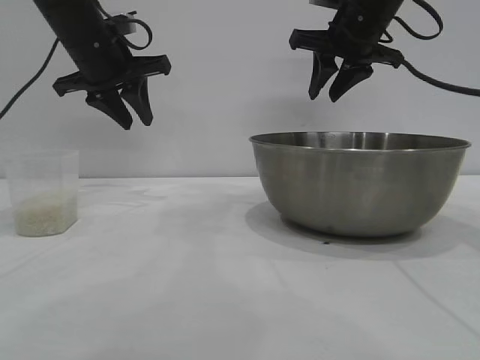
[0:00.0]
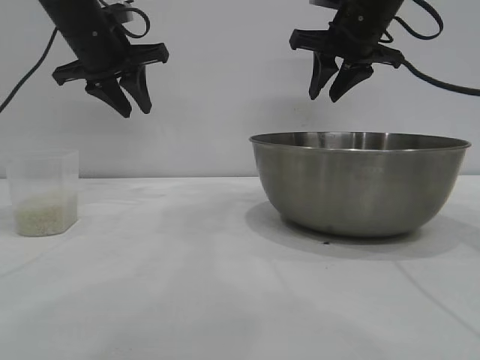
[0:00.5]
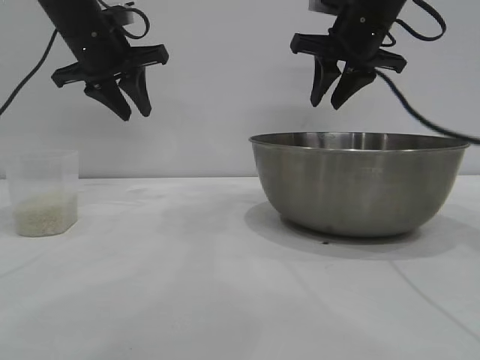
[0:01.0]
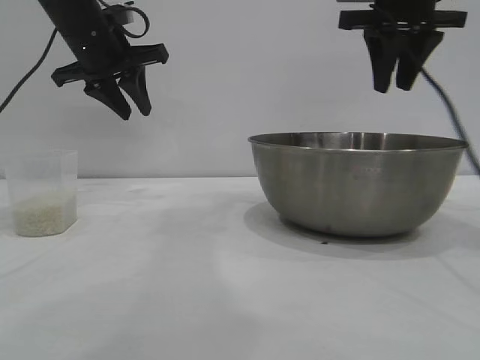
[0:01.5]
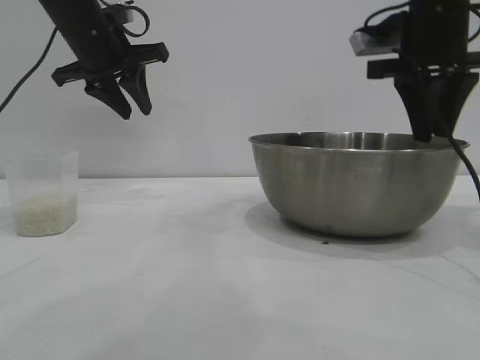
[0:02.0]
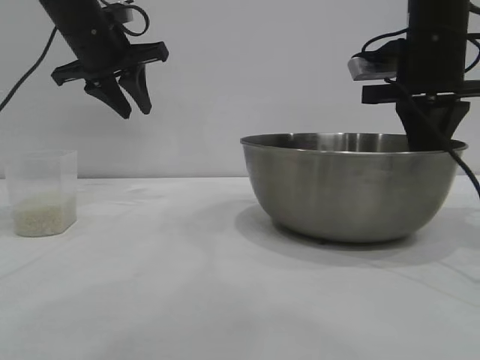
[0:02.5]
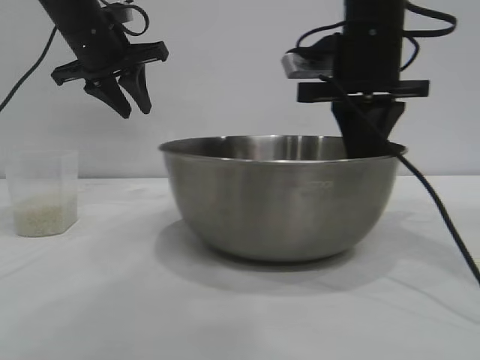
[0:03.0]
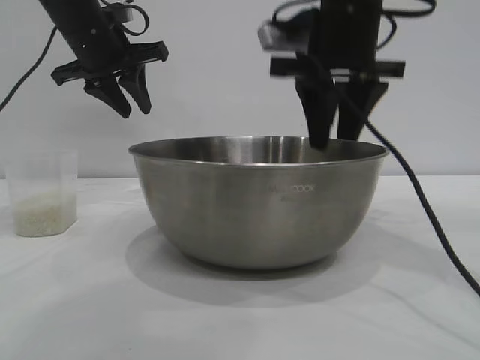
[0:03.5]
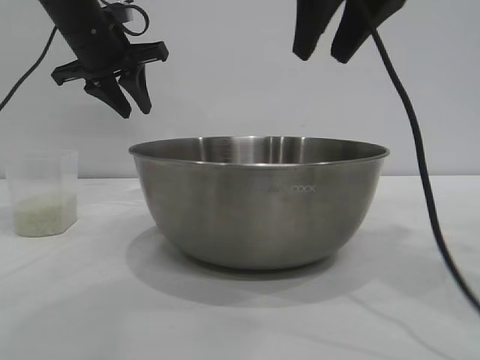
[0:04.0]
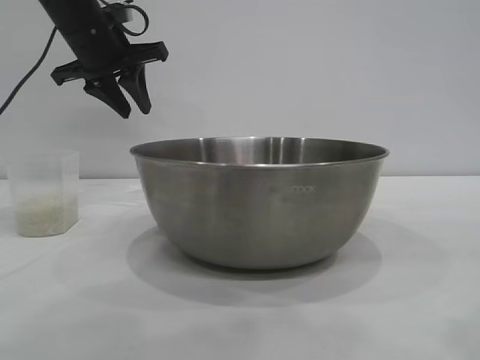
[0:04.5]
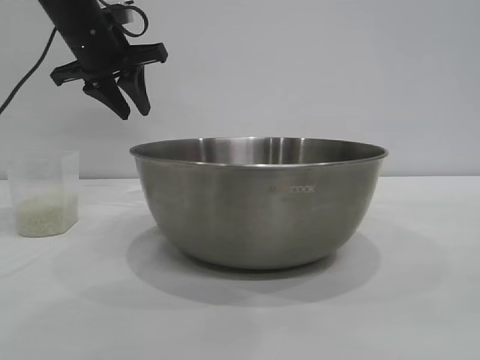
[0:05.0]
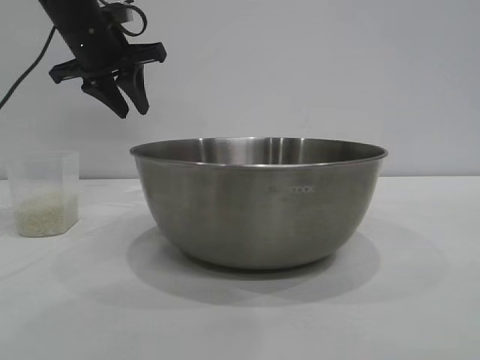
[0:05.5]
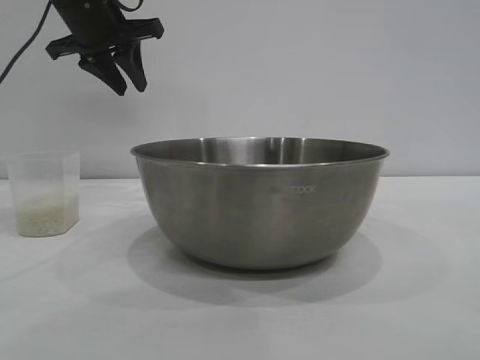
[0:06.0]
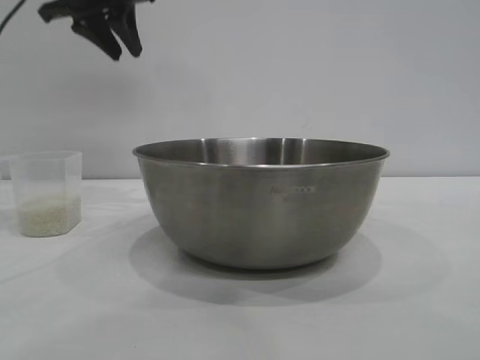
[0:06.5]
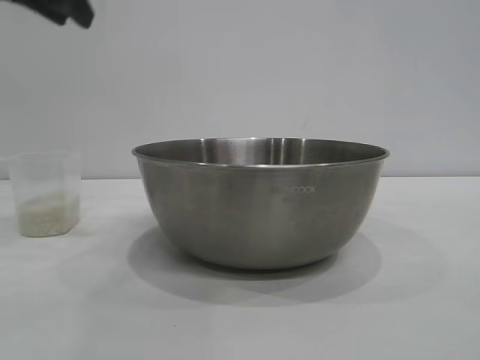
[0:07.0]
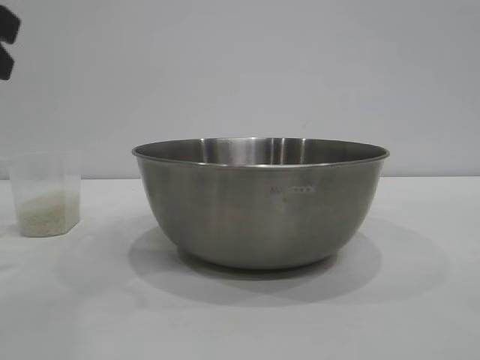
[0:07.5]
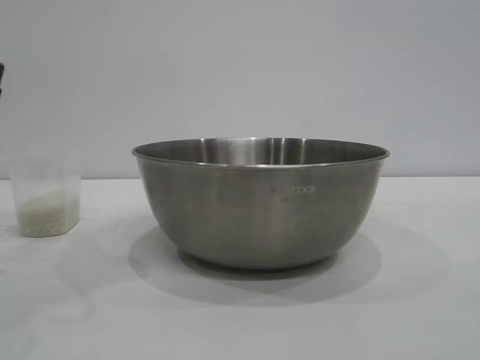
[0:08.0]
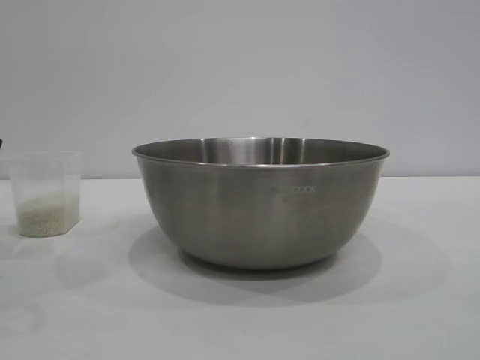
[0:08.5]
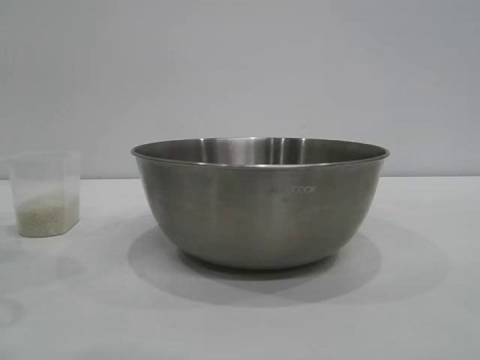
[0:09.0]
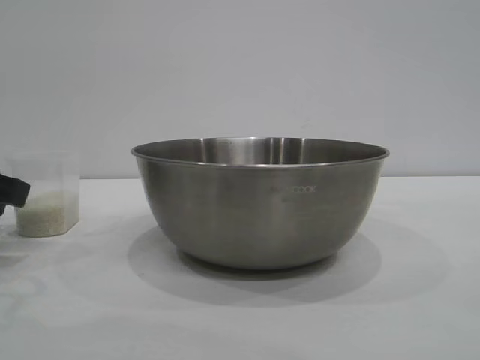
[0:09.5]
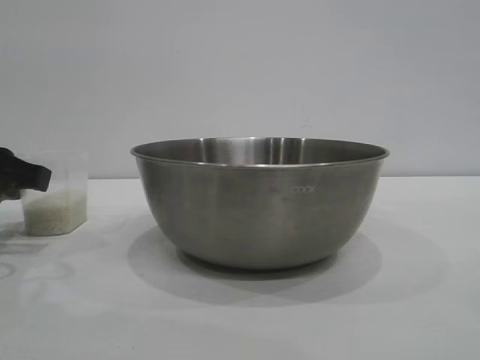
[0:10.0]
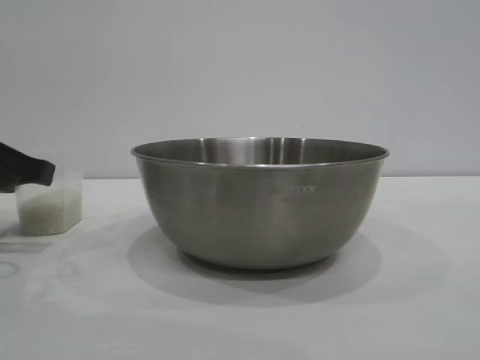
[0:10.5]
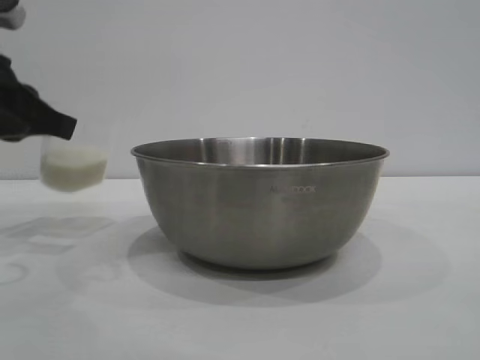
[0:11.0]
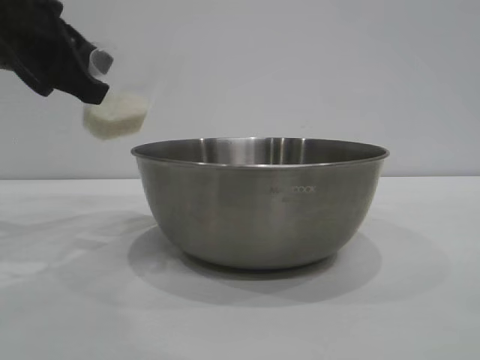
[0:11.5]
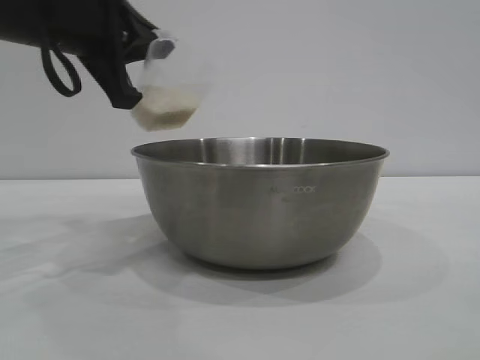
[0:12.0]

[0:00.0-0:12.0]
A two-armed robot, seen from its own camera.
Task of the whole recording: the right gripper grasp the rice container and place it in the center of the table, the left gripper grasp the rice scoop and pour the rice into the rice container.
Step, 0:00.0 to 0:03.5: Move the bowl to the center of view with the right gripper.
Step, 0:04.0 to 0:10.5: Pick up the cup with rice in it with the left gripper.

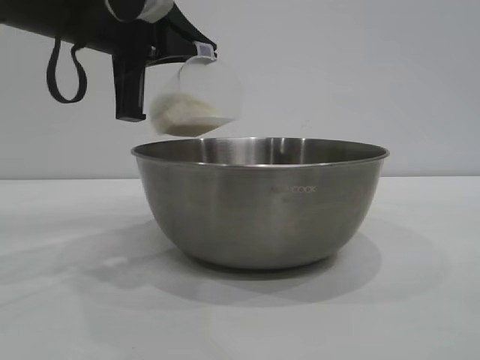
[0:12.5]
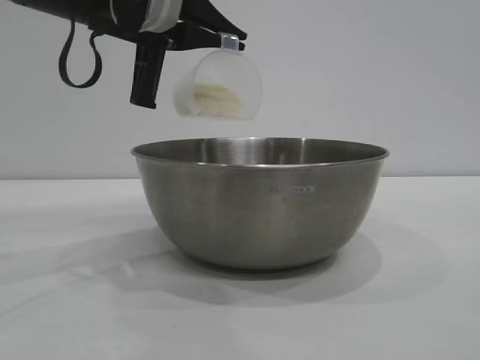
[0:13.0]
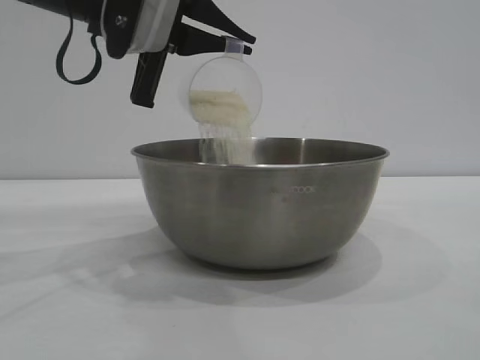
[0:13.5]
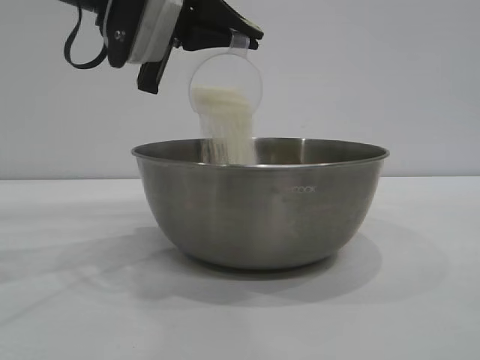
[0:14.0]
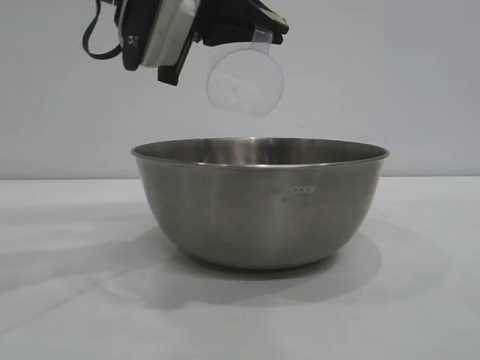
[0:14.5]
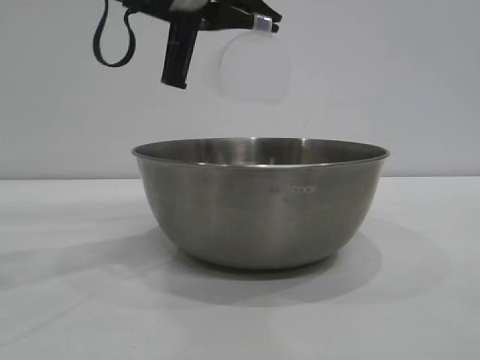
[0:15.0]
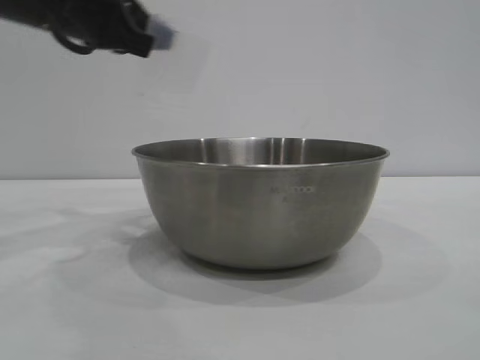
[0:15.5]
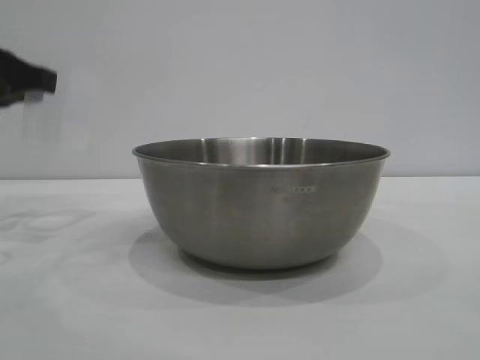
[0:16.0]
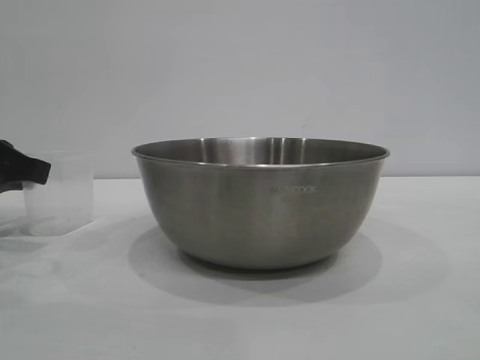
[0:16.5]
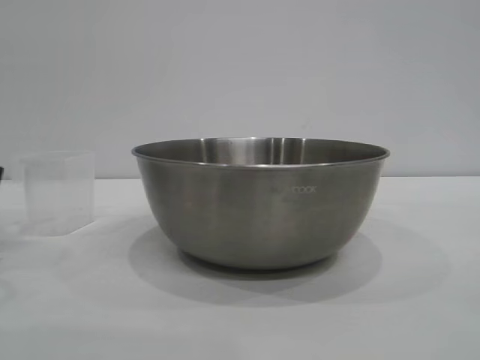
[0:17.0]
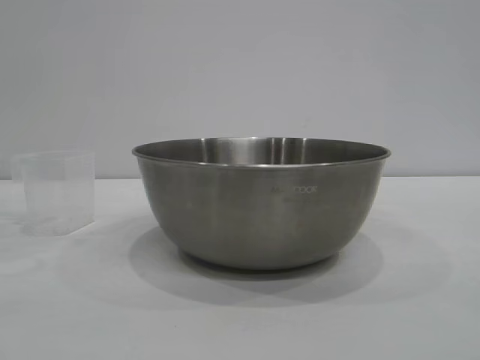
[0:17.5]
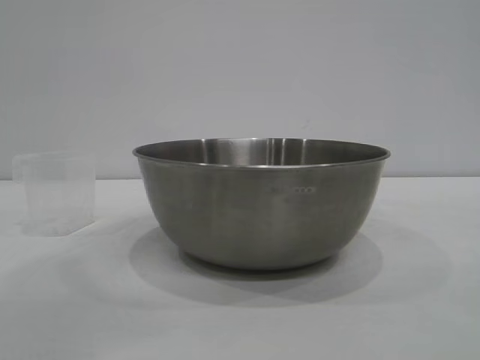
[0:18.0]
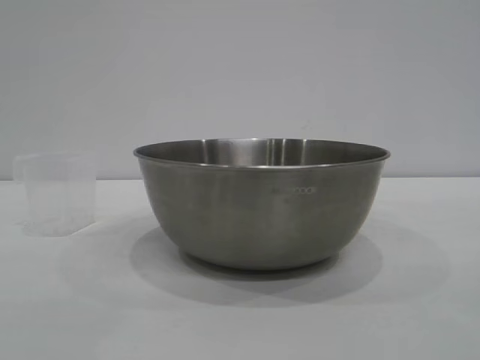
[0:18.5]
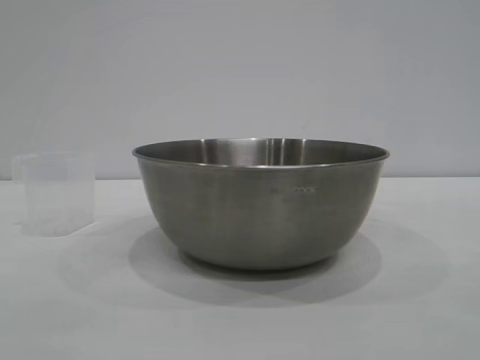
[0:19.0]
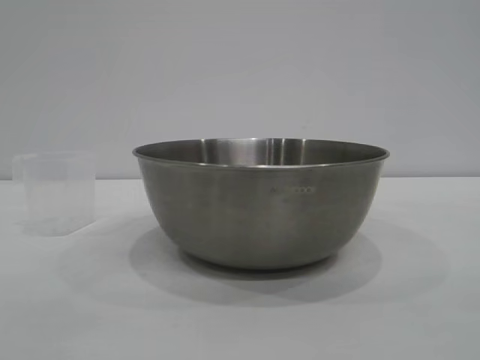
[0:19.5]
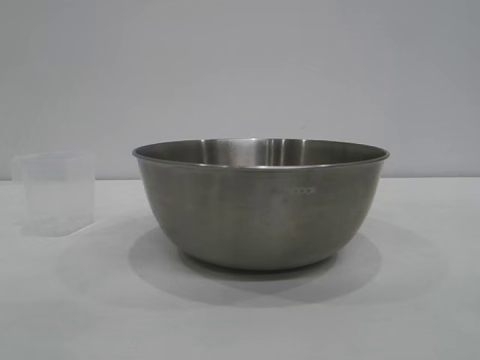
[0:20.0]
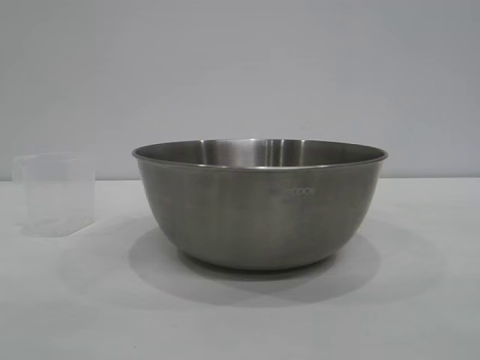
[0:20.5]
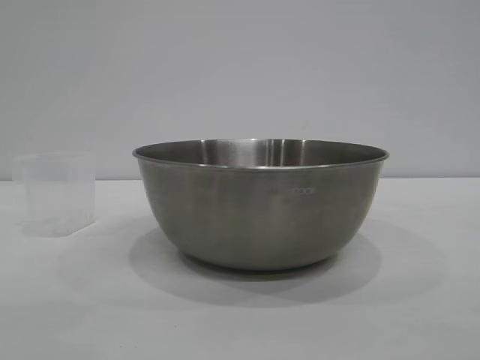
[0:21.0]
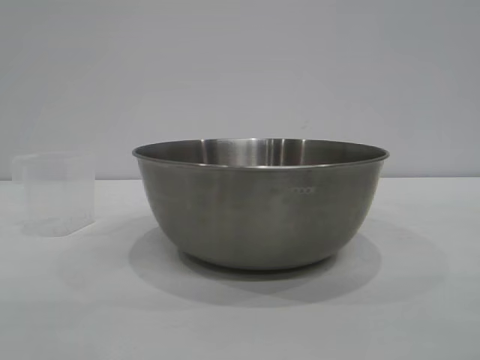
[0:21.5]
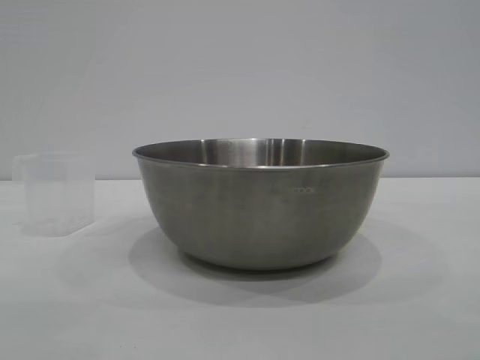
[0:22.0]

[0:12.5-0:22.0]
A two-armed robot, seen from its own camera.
Task of the whole recording: the right gripper grasp the rice container and place it in the center of the table, the left gripper grasp the rice scoop and pour the rice into the rice container.
Step, 0:12.5 to 0:15.0: Pour the rice from the cup into the bowl with the left gripper.
Step, 0:15.5 to 0:17.0: Place the cup on the table with the left gripper.

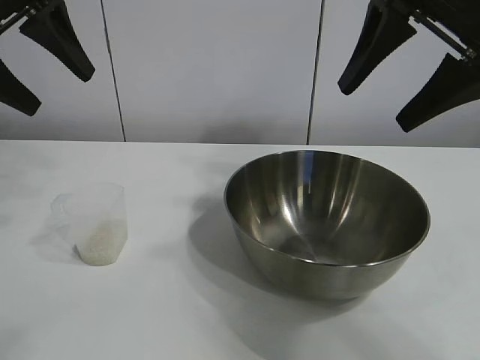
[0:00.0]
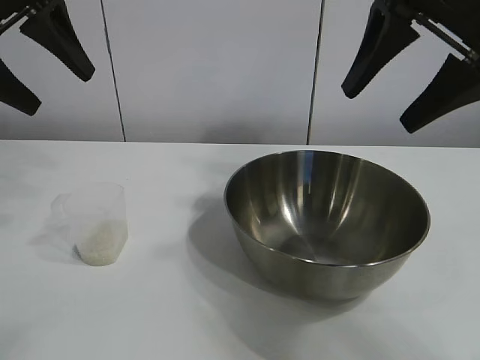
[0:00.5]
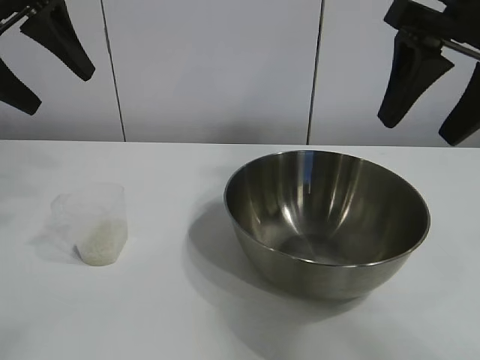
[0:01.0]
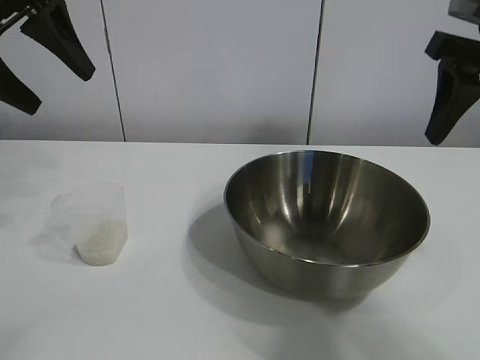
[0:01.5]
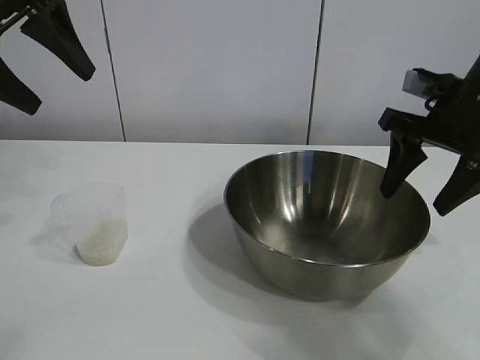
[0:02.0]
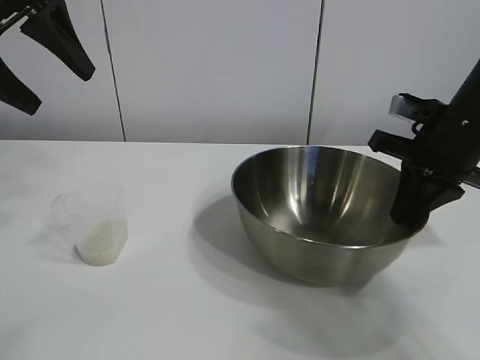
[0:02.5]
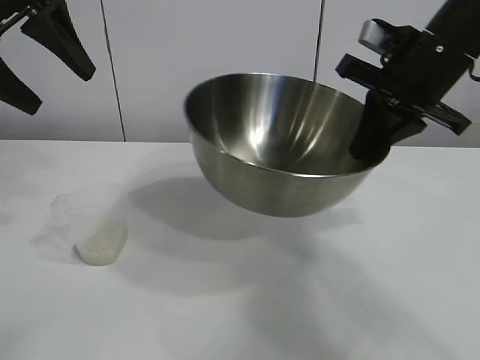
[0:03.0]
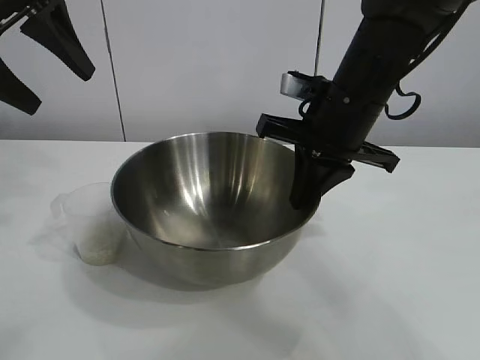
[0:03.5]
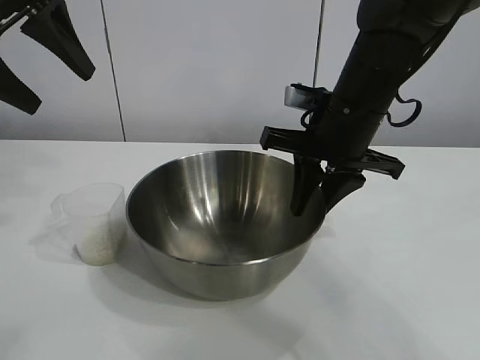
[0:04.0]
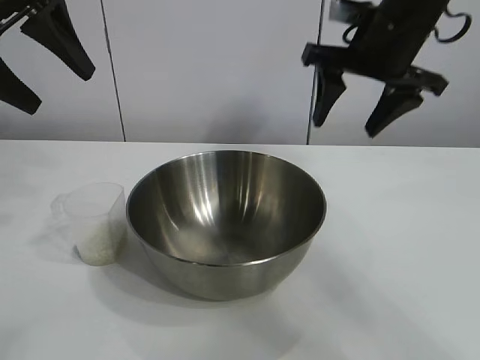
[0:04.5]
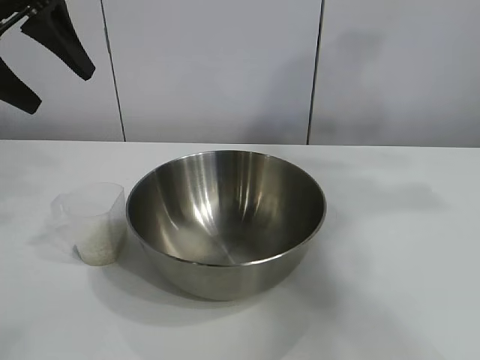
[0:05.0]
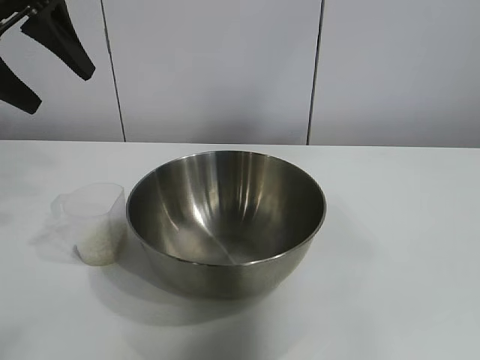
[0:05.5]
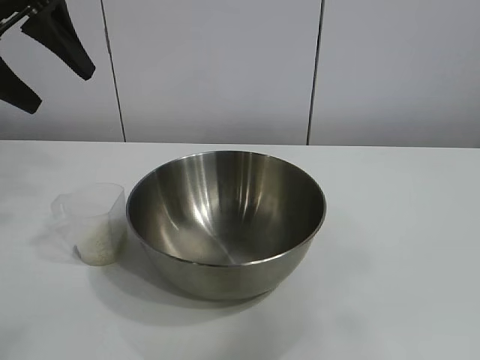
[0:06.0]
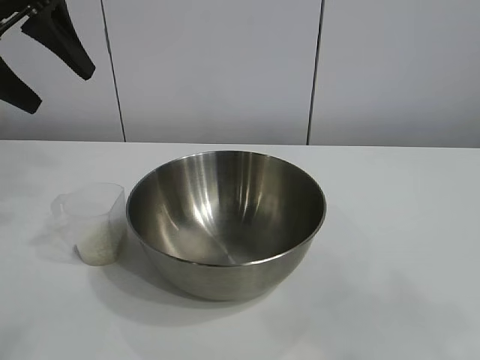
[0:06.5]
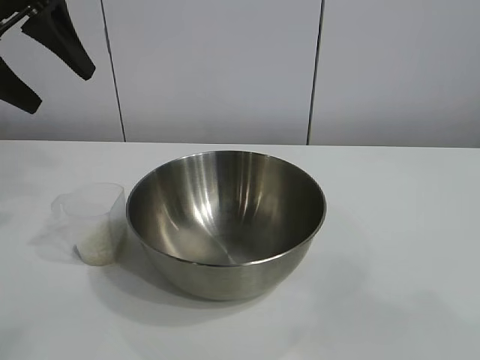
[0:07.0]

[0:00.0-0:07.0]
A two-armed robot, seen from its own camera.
Task of the whole recording: the right gripper grasp the rice container and place it in the center of the table, the left gripper grasp the rice scoop and pour the rice into the rice container.
Step, 0:01.0 to 0:04.0: Move the bowl in the center of view with right gripper.
